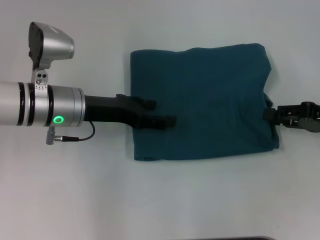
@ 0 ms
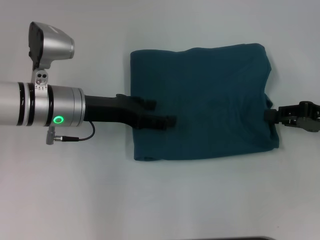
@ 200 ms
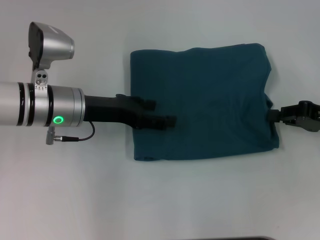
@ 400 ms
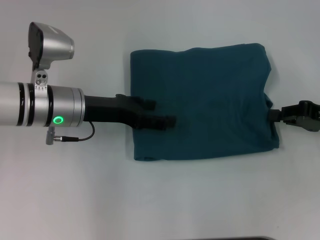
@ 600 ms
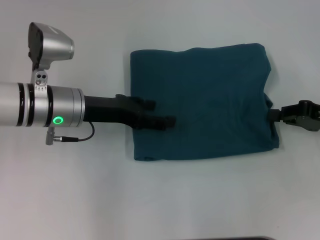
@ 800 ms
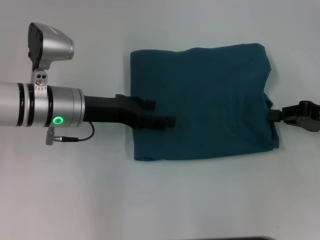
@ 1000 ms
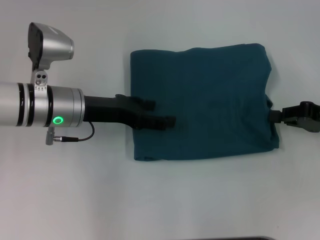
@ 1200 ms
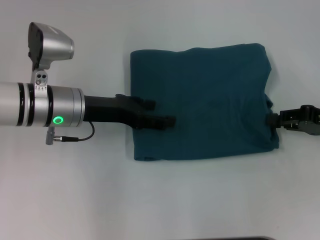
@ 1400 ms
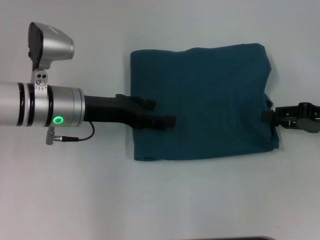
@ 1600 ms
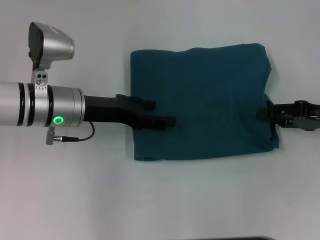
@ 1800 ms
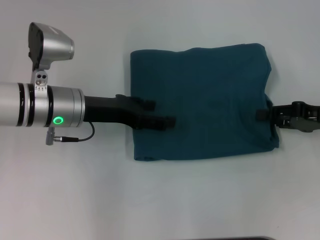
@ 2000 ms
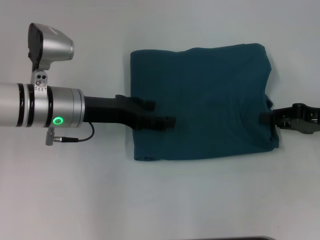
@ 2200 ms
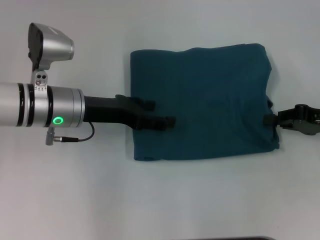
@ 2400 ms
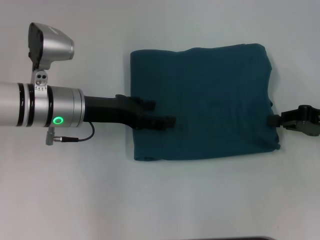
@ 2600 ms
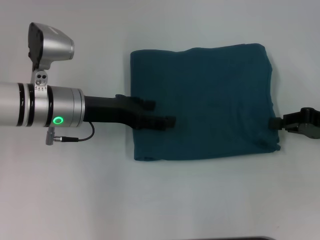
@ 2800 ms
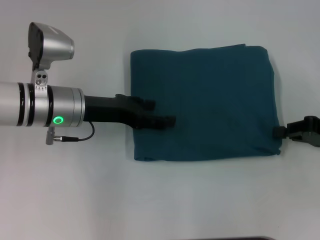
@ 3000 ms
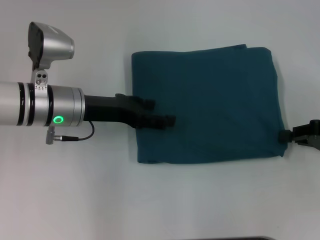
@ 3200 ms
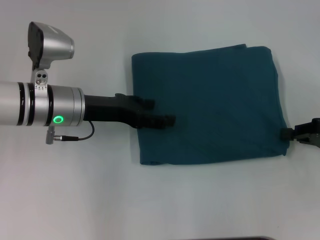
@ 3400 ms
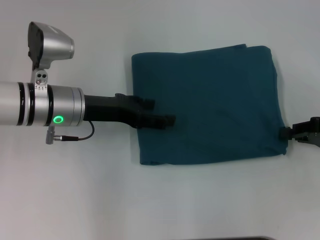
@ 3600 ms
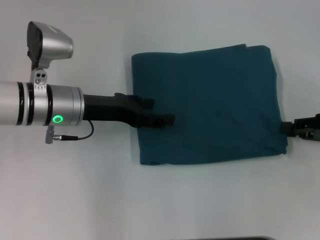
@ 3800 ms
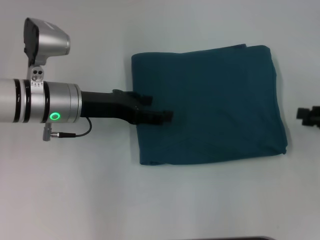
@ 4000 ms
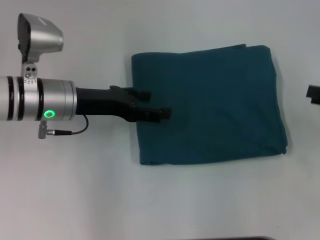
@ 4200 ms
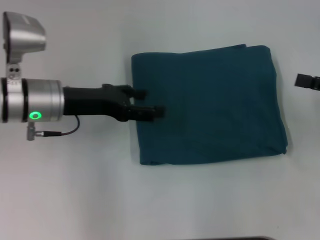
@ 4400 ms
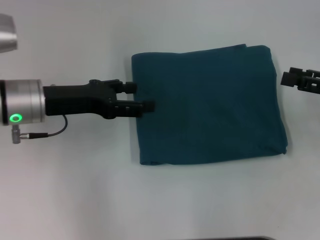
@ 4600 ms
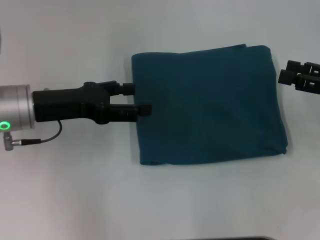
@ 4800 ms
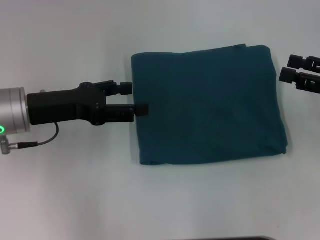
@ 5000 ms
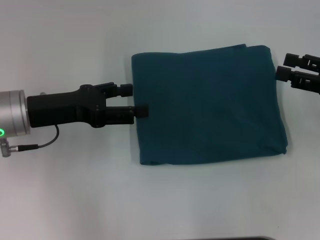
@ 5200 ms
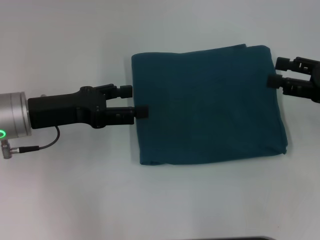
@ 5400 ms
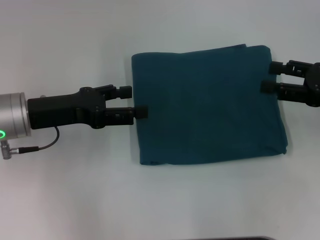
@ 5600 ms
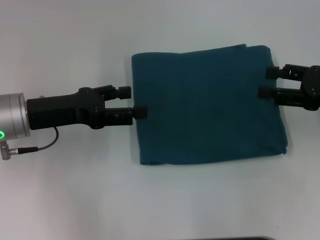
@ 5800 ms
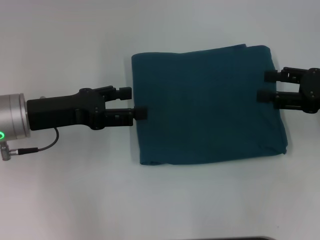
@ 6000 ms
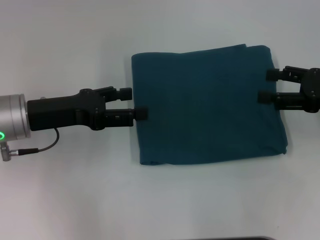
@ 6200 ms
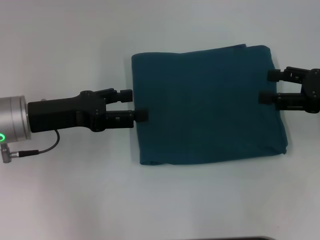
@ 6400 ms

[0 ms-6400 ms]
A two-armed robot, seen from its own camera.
1600 ms to 3200 ms: The grippers stay close to where they were, moving slightly.
3200 ms to 4800 ms: The right gripper shifts by some 5 cm, and opens. Meanwhile the left gripper moves to the left, some 5 cm.
4800 ms to 6400 ms: There are only small adjustments of the grippers.

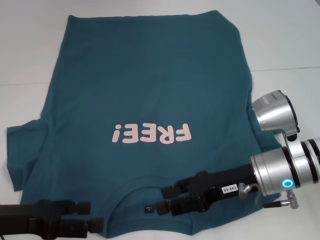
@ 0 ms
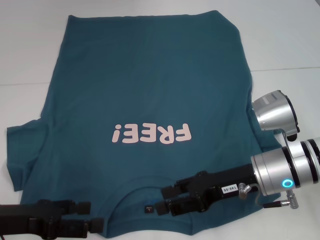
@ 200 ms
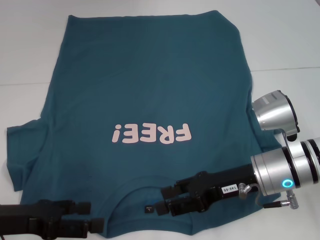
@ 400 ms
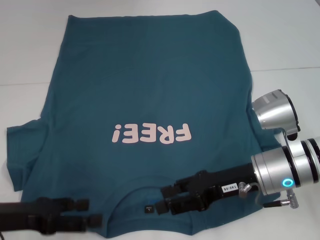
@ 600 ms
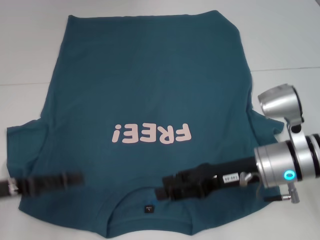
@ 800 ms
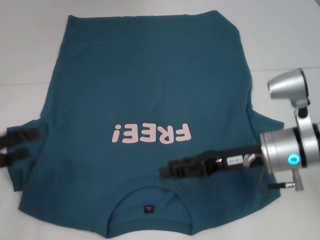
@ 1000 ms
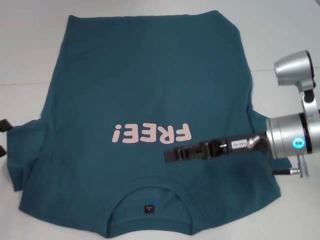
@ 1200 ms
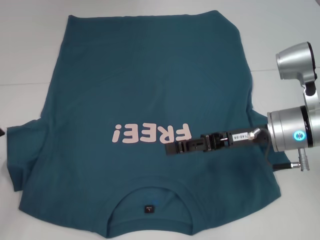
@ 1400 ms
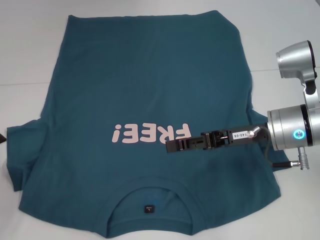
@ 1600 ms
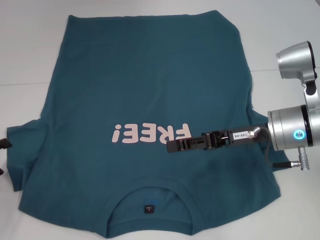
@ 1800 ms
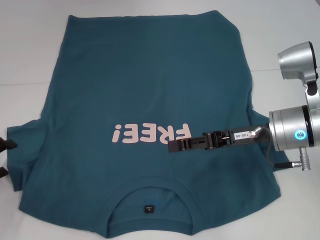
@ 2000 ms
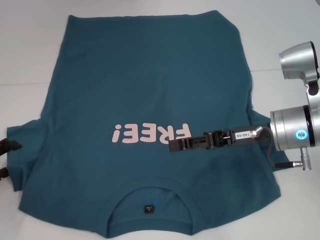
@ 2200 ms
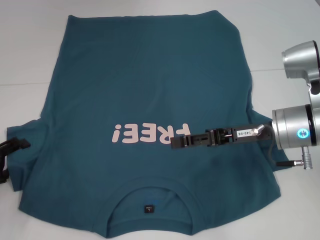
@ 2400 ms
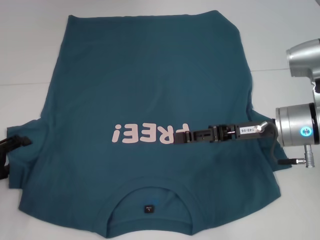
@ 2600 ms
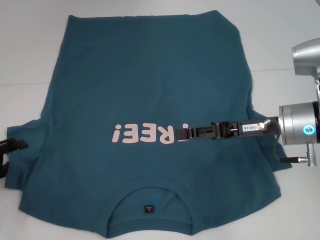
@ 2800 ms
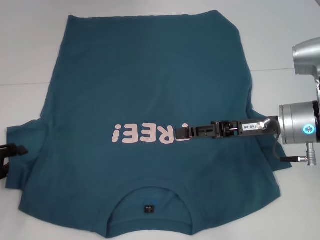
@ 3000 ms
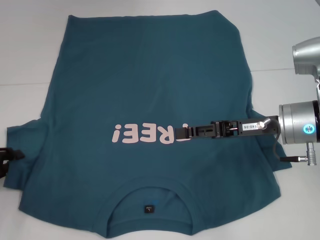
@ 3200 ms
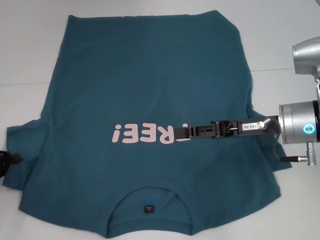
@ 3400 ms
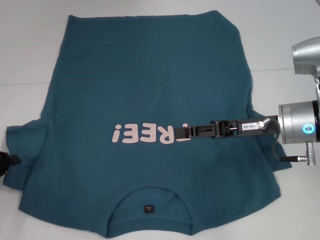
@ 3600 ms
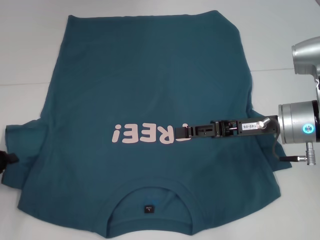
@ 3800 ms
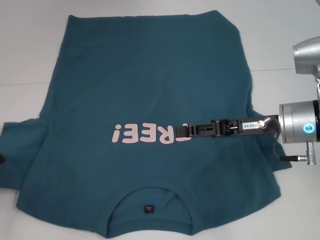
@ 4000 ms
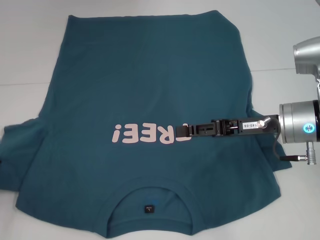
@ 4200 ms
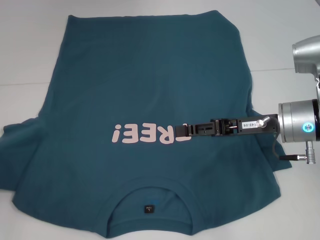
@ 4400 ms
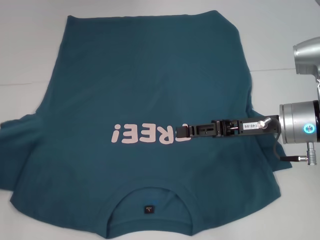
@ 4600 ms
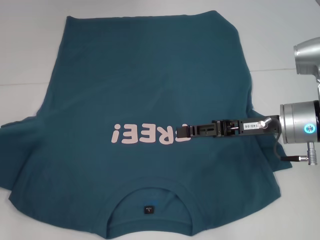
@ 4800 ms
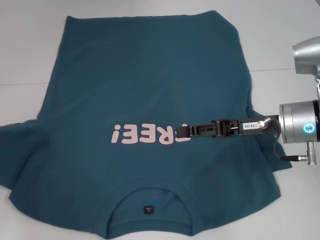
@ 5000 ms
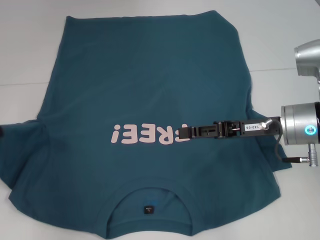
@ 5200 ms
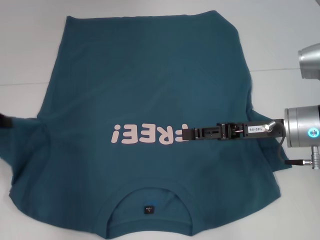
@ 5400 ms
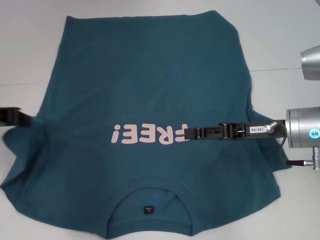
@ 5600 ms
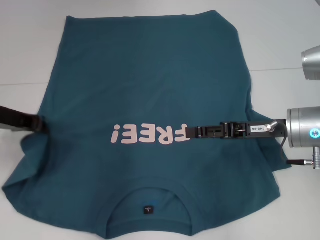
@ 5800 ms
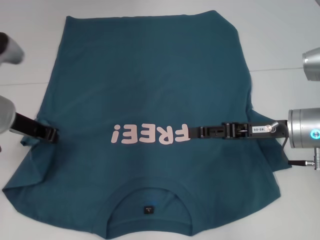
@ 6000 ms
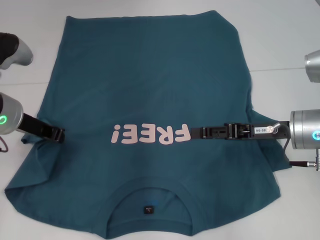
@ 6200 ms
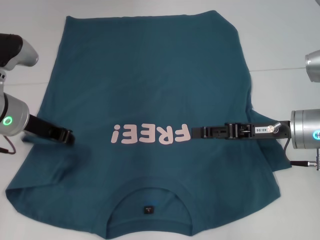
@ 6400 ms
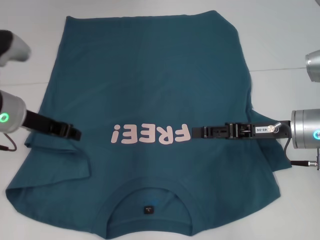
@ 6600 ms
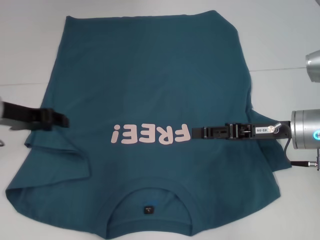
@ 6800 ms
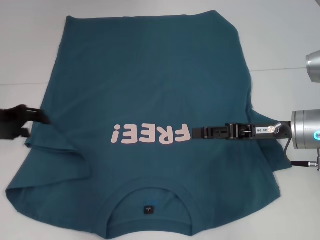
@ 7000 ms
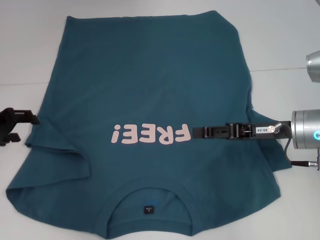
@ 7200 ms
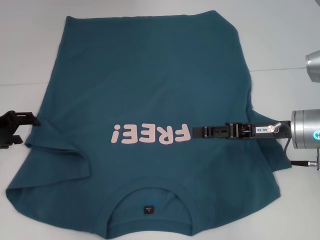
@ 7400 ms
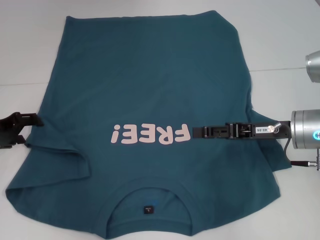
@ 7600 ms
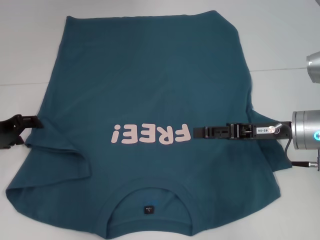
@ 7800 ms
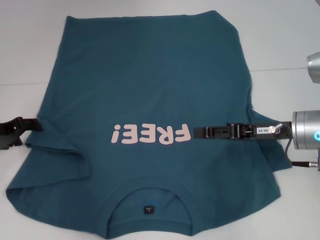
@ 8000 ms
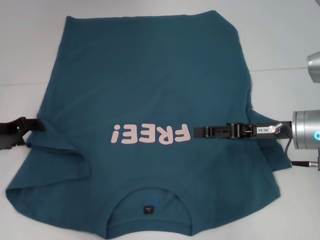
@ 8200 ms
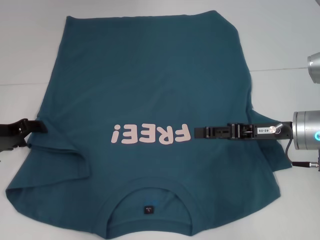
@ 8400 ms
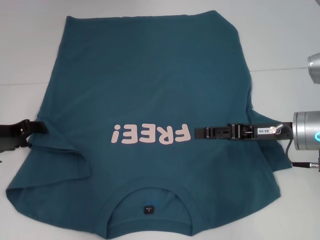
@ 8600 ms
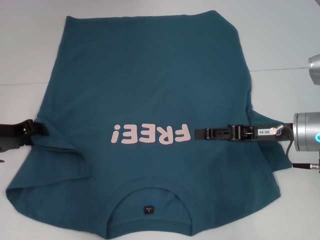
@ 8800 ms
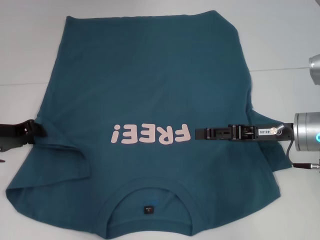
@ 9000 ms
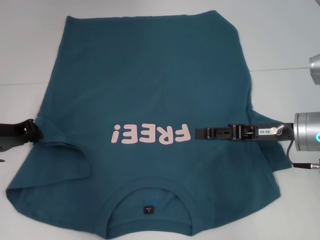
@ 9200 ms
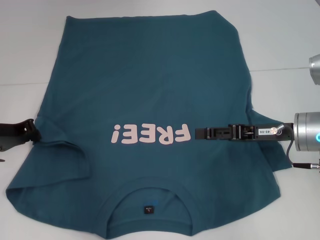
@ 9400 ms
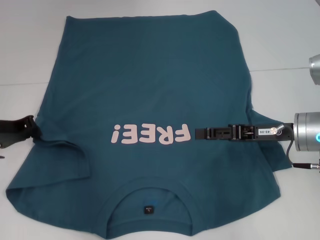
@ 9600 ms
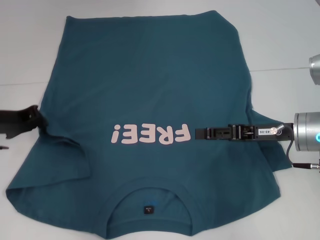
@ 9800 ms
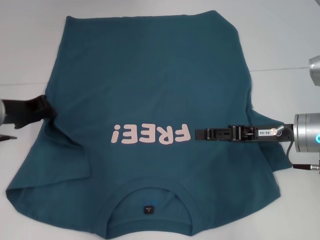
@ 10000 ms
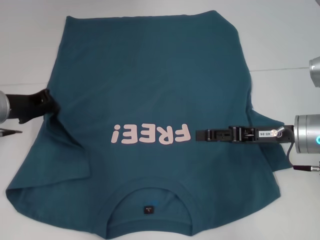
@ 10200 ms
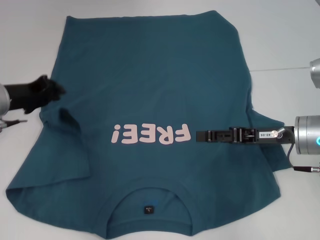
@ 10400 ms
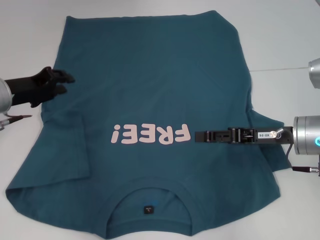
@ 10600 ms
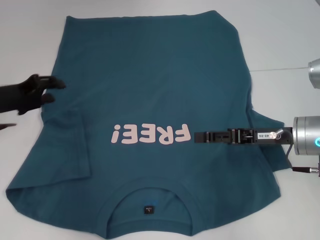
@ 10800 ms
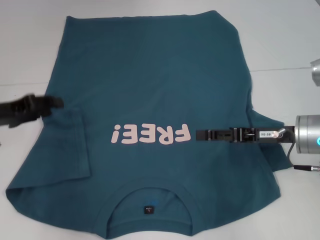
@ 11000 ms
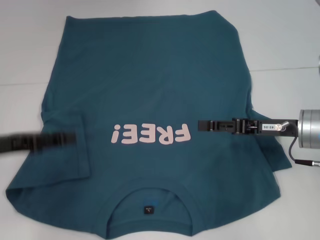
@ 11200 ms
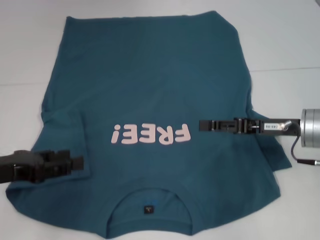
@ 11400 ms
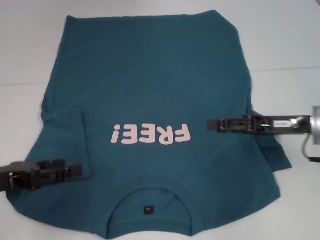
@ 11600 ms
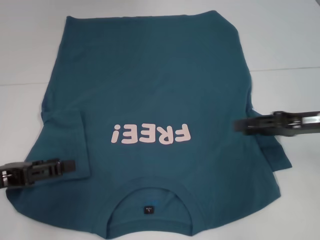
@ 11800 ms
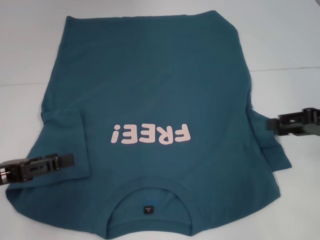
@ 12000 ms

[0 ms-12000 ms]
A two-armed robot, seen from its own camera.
Step, 0 ms to 10800 ms: Fold the bottom left sleeve with your left hand.
0 ms to 1600 ms: The right gripper ends up about 5 cm from where it was. Meanwhile the left gripper is displaced to the left by approximately 10 cm.
1600 ms to 3000 ms: The left gripper closes up.
3000 ms to 4400 ms: The left gripper closes up.
4400 ms to 6000 ms: The left gripper is displaced to the right, forward and upward by approximately 20 cm.
6000 ms to 7600 ms: The left gripper moves to the left and downward, some 10 cm, and opens.
7600 ms to 9000 ms: The grippers make only small movements.
9000 ms to 10400 ms: The left gripper closes its fingers.
10400 ms to 12000 ms: The left gripper is displaced backward by approximately 15 cm, and opens. The right gripper is displaced to the right by approximately 10 cm.

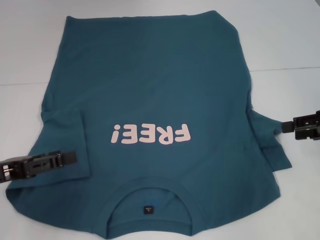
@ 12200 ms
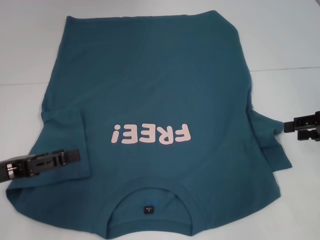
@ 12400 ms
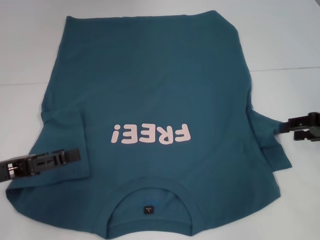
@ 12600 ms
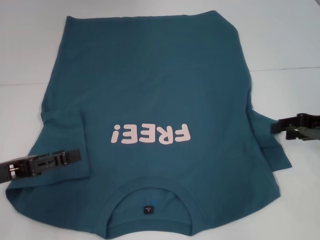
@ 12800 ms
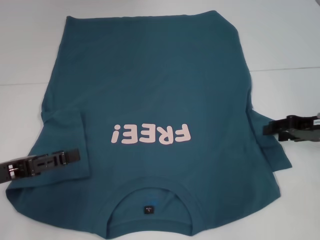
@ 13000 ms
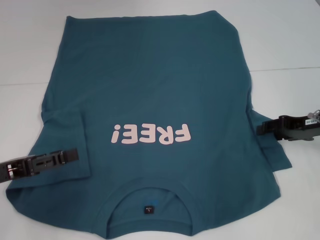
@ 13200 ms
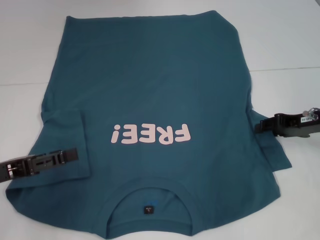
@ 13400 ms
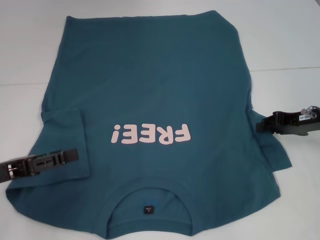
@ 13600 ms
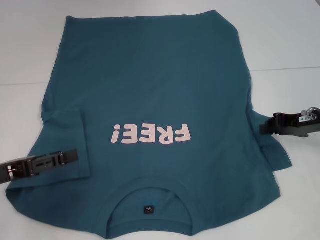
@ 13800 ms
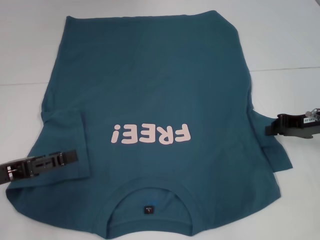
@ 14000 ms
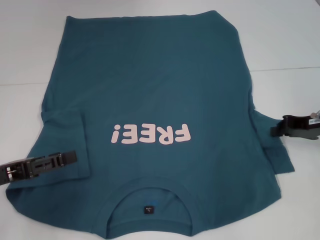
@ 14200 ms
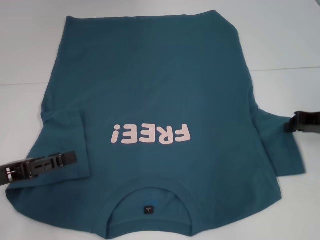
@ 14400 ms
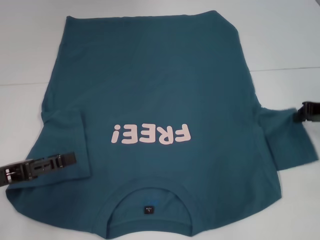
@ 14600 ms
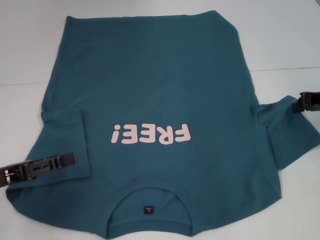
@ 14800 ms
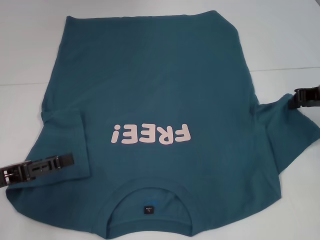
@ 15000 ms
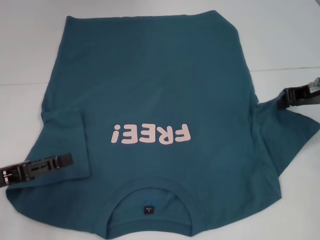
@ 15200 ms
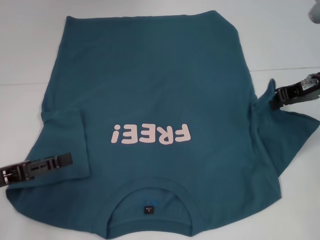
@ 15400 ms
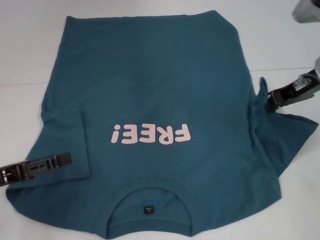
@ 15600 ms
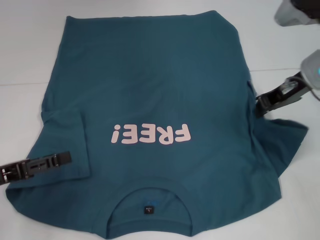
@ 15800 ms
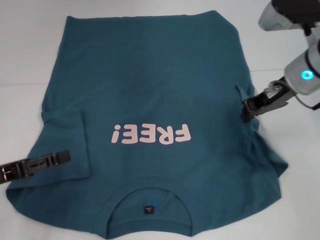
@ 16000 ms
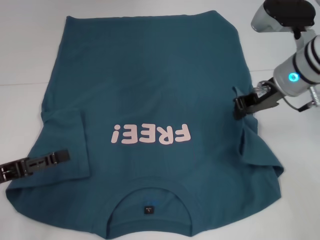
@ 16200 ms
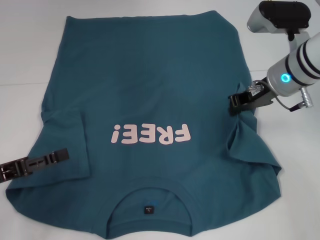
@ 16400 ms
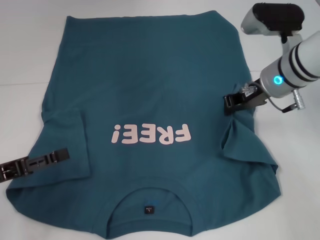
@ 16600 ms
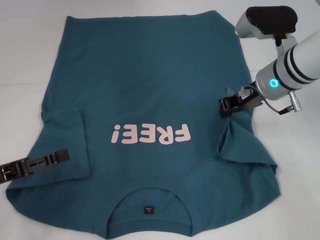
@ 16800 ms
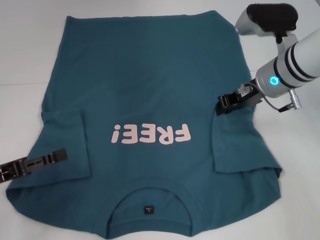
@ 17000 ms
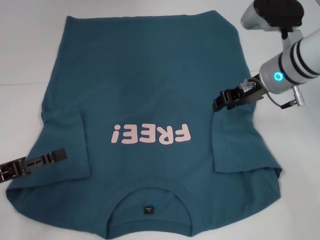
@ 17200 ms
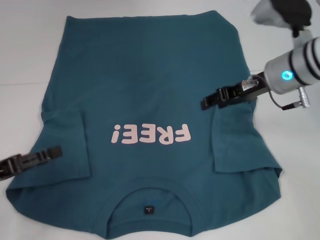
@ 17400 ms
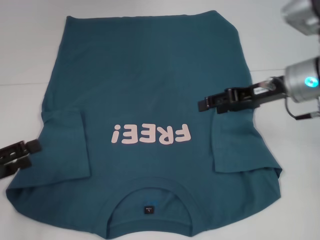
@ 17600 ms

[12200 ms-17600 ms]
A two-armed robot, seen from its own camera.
Step, 12200 ms to 17400 ms: Fold the bottom right sleeve to the right.
12200 ms to 13600 ms: The right gripper shifts about 5 cm to the left.
13600 ms to 15000 ms: The right gripper ends up some 5 cm from where it was, and closes up.
15000 ms to 16200 ms: The right gripper moves to the left, roughly 10 cm.
16200 ms to 17600 ms: The right gripper opens.
